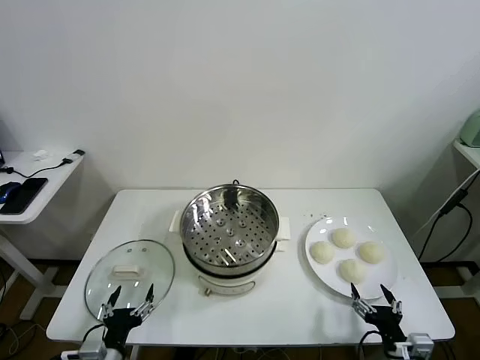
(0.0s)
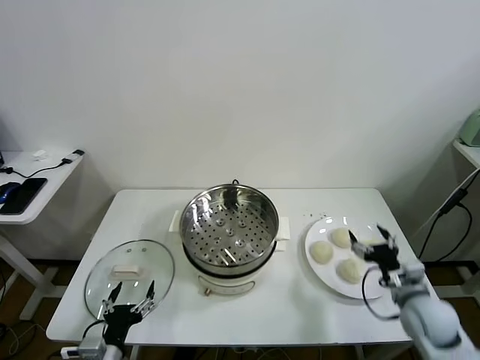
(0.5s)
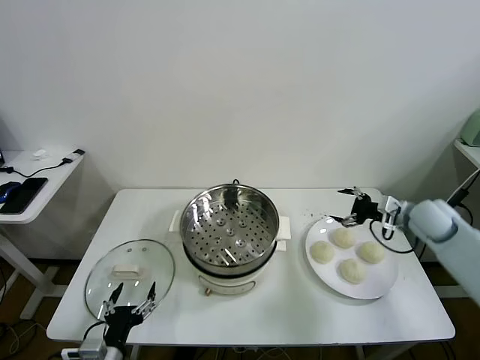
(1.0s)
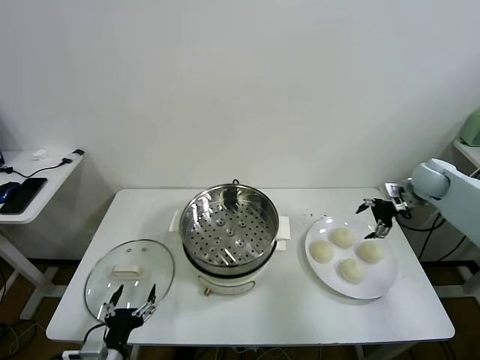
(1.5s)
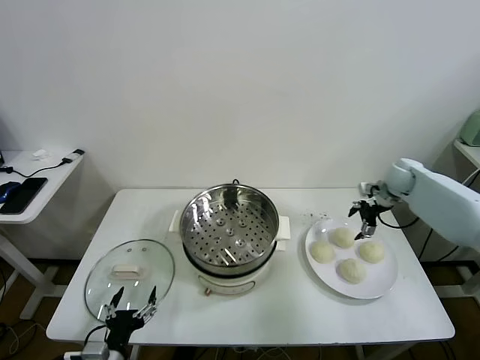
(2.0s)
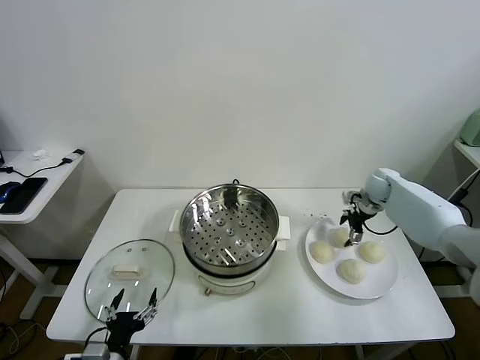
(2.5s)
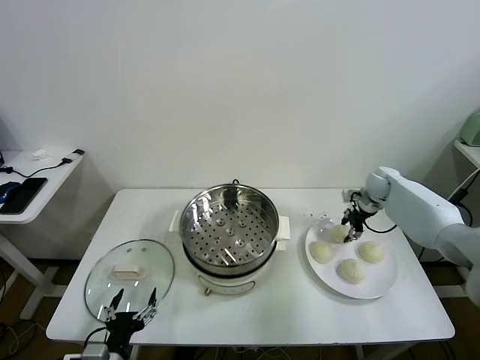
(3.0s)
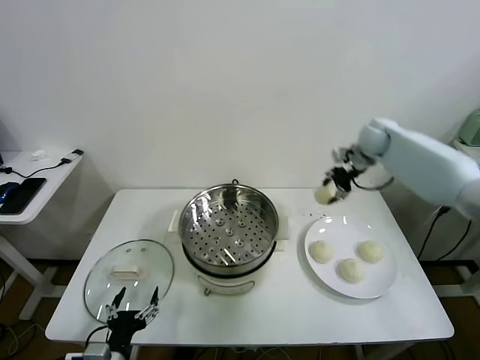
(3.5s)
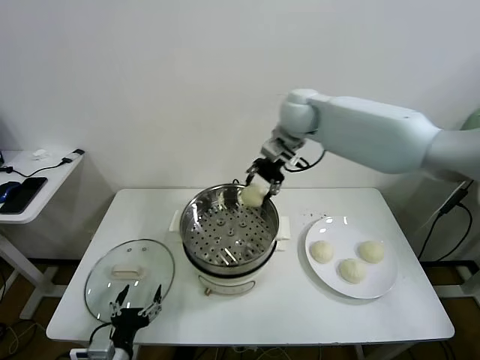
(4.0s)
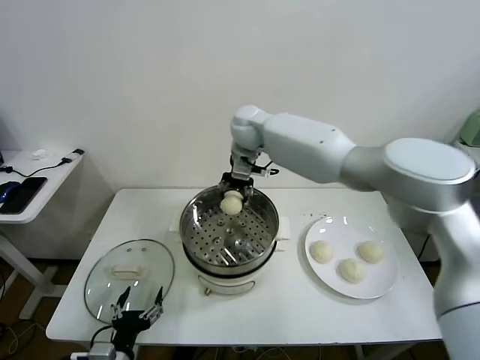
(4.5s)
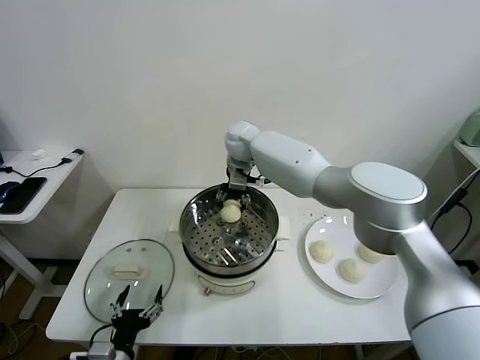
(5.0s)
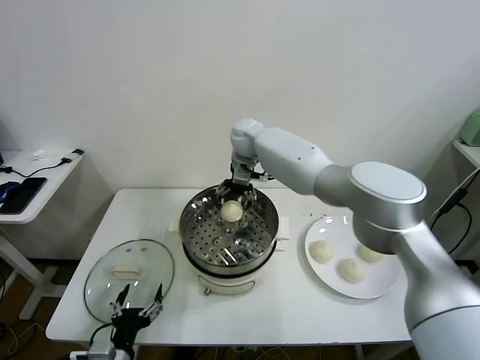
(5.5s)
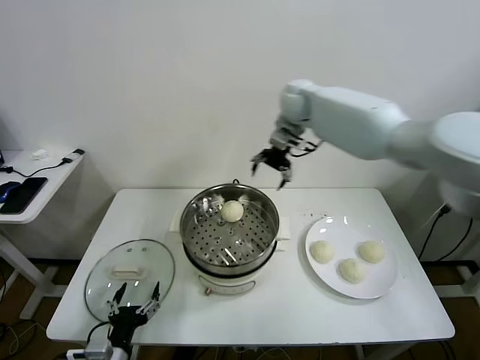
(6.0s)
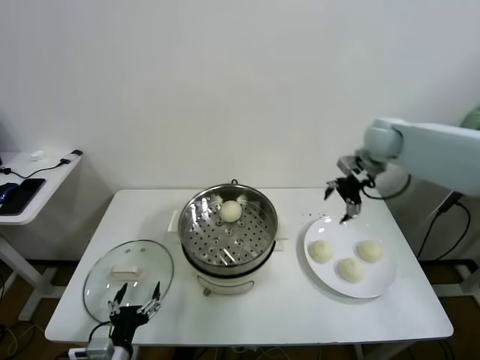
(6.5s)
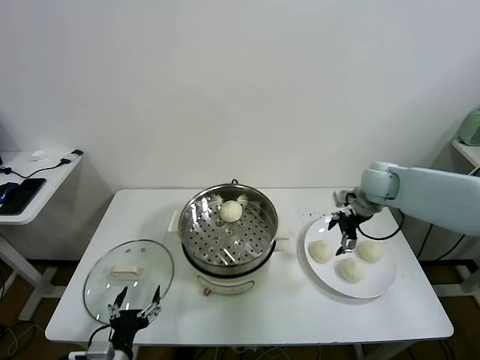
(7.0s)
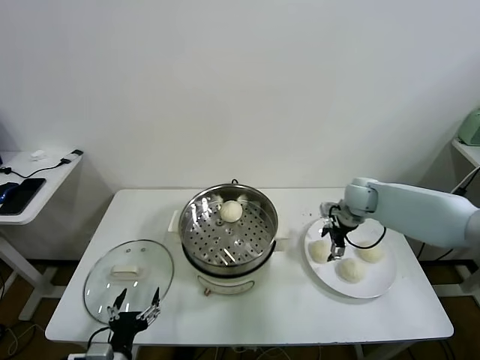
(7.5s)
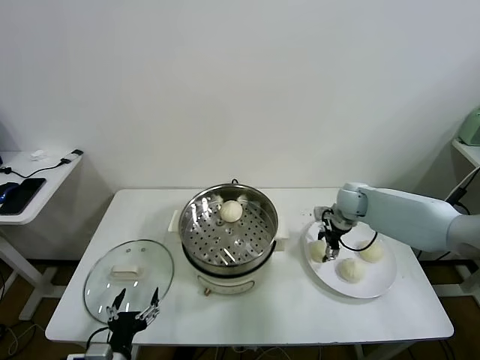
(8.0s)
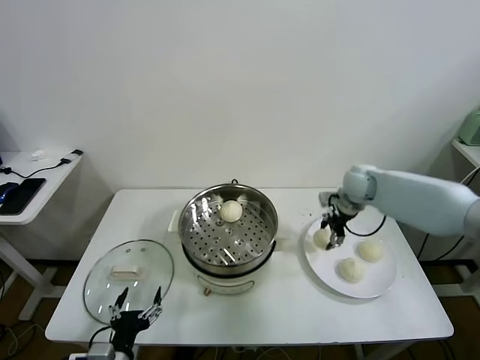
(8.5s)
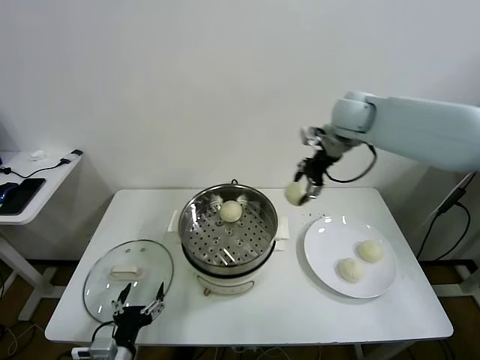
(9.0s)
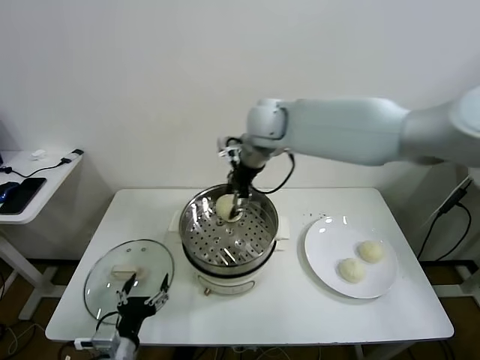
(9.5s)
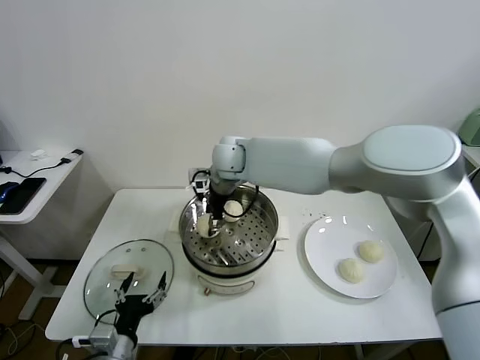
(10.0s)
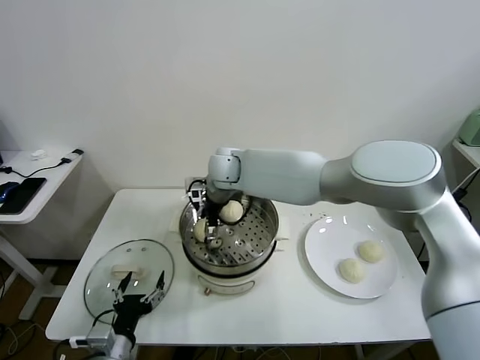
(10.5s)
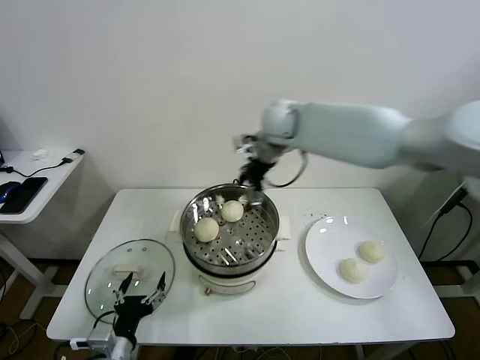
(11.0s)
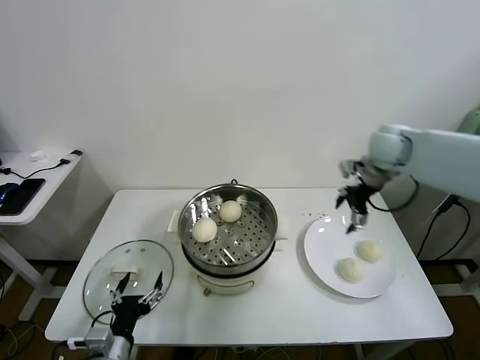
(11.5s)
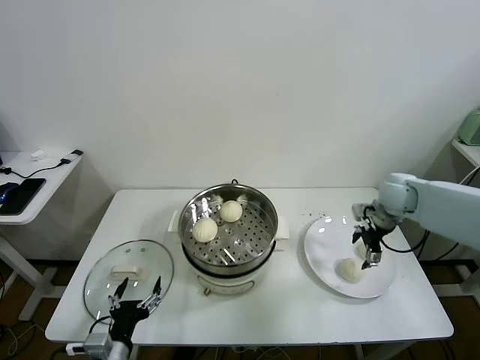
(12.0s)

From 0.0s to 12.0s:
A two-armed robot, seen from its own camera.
Task of the whole recording: take steamed baozi put them in steamer.
Step, from 0.0s to 2.5s: Grasp the baozi in the plate with right gripper.
Step, from 3.5s to 5.5s: Place the baozi on the steamer with right gripper.
Step, from 6.0s to 8.0s: Grasp the baozi in the plate with right gripper.
Step, from 8.5s to 10.0s: Place the baozi on the steamer with right gripper.
From 2.0s to 4.0s: The right gripper moves to the left and upward, approximately 40 cm, and closes.
From 4.0s to 6.0s: The right gripper moves to the right and forward, roughly 10 cm, and opens.
From 6.0s to 8.0s: The right gripper travels downward and to the right by approximately 25 cm, and closes its fingers.
From 8.0s to 10.0s: The right gripper is displaced to the left and upward by some 35 cm.
From 10.0s to 12.0s: The right gripper is displaced to the right by about 40 cm, and opens.

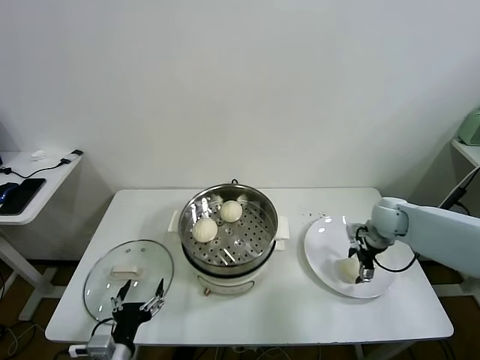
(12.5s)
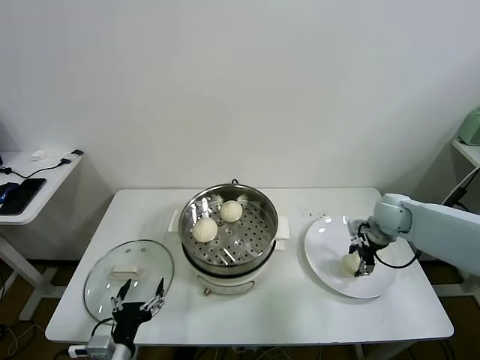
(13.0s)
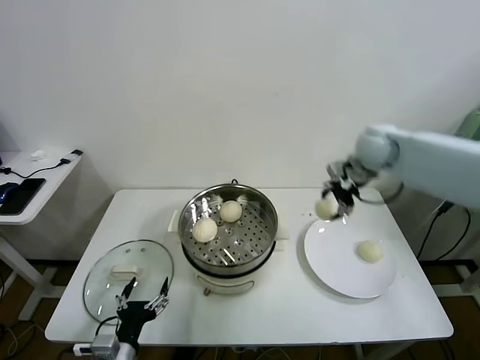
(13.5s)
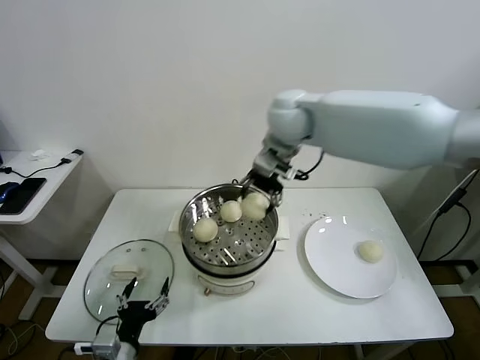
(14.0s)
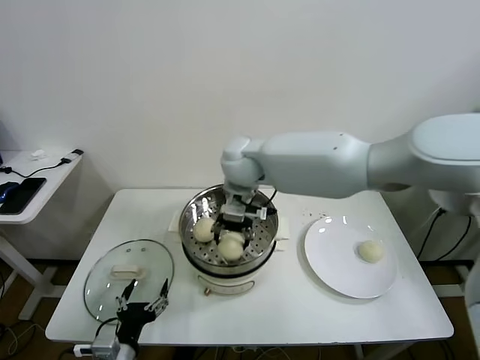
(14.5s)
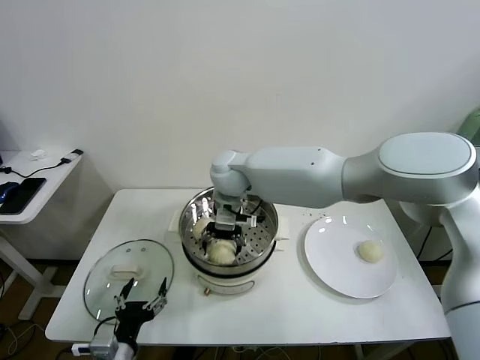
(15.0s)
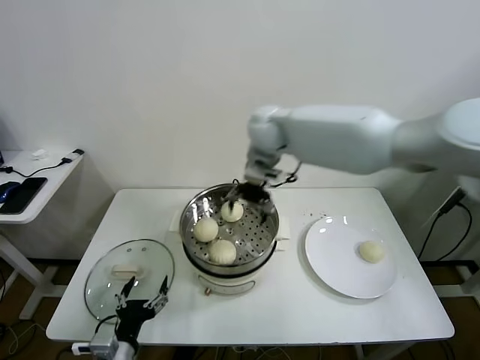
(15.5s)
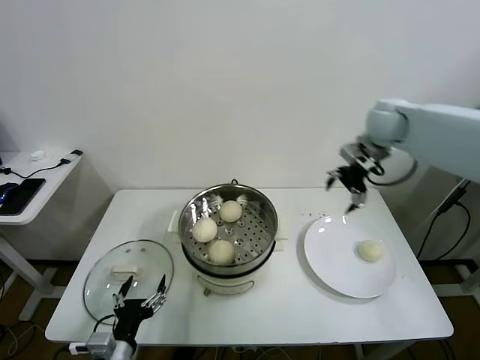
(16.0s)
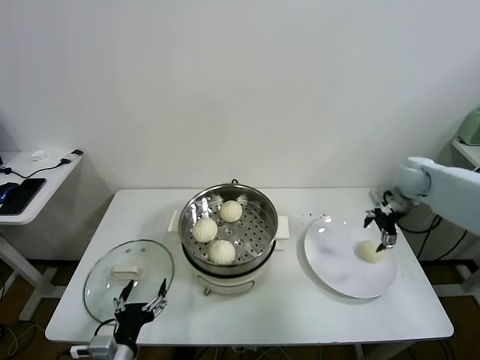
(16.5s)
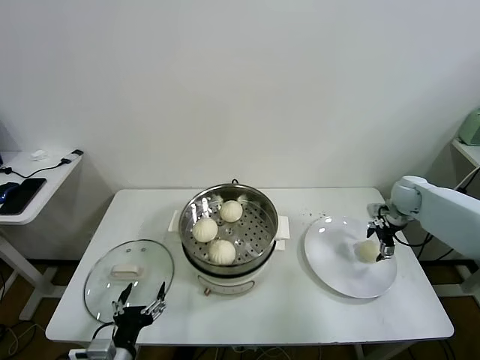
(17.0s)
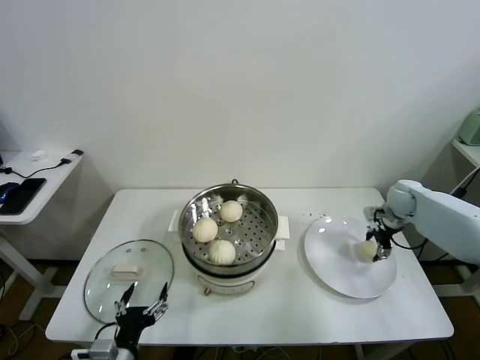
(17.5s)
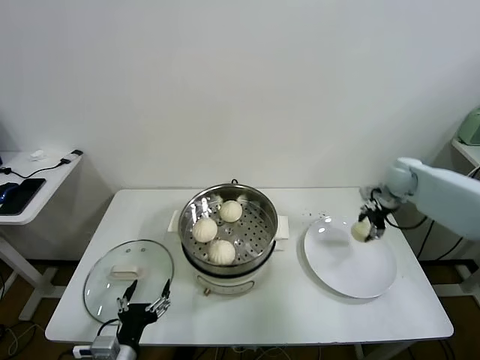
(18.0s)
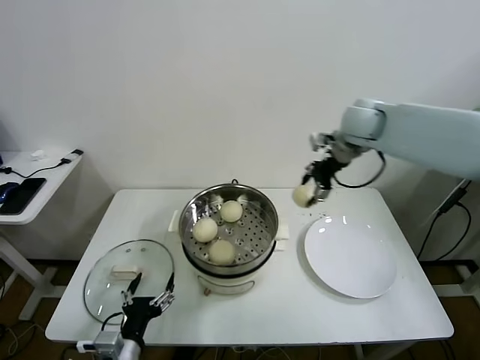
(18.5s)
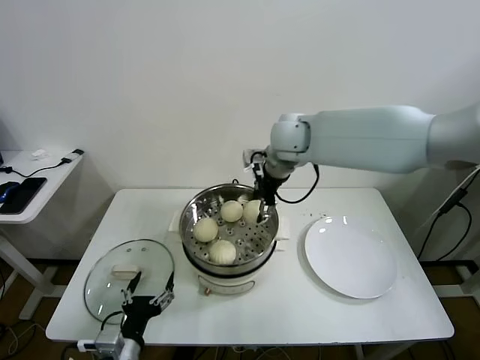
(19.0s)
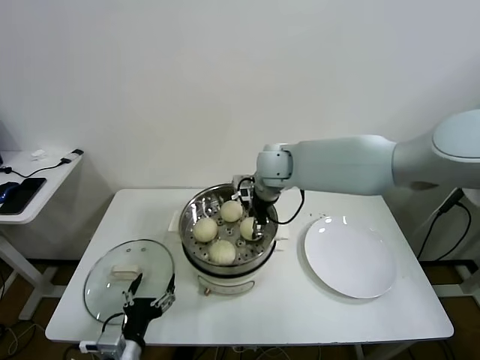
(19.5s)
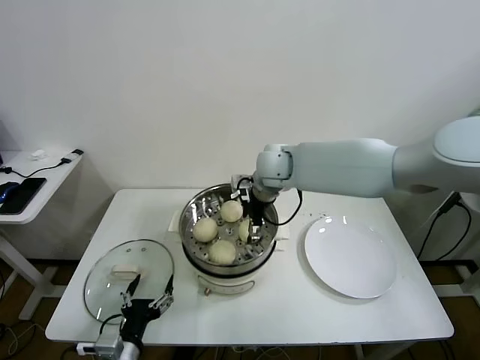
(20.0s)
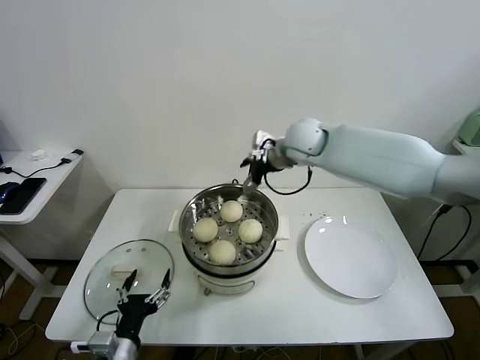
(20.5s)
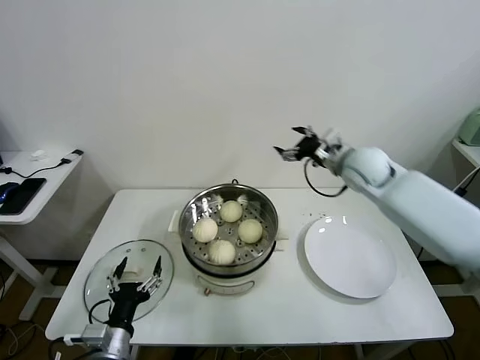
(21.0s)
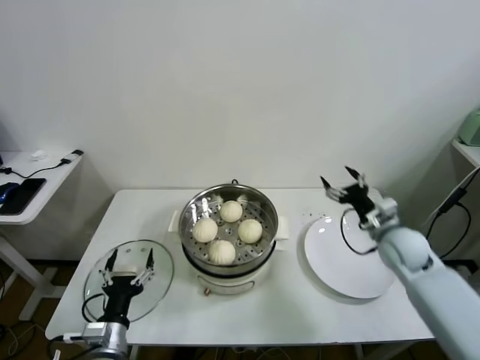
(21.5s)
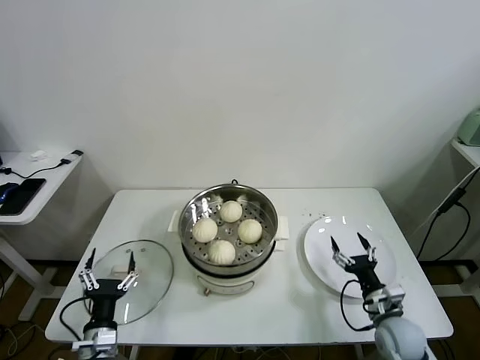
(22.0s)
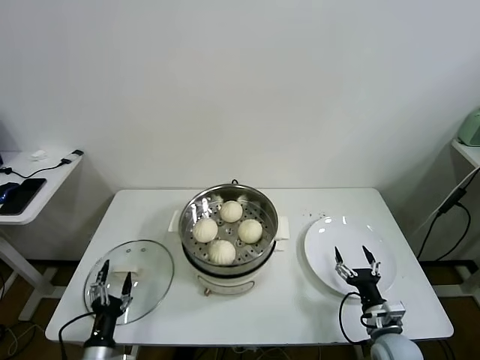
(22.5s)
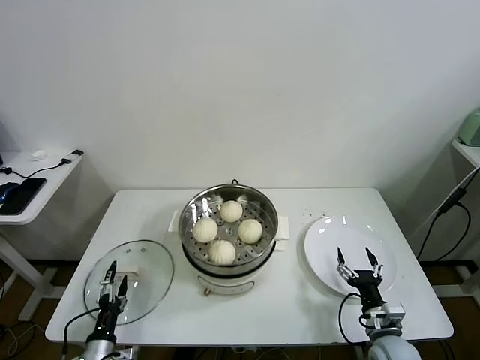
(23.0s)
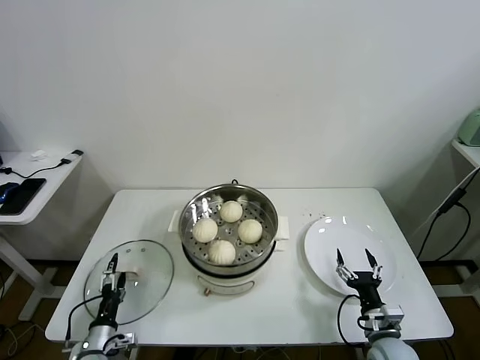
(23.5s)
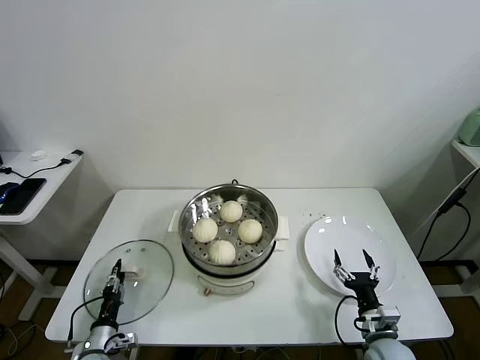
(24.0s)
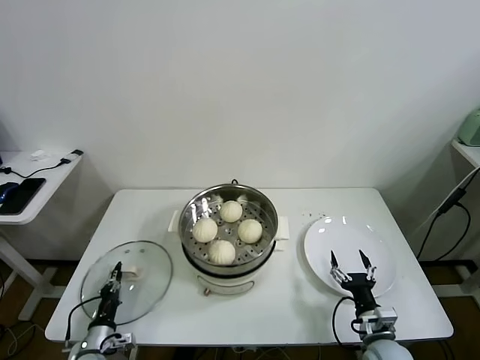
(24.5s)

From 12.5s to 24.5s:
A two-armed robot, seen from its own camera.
Task of the whole recording: take steamed baozi put them in steamer.
Step, from 13.0s to 14.5s: Place the baozi on the steamer with right gripper.
Step, from 15.0s to 17.0s: Grasp the baozi in the plate with right gripper.
Step, from 17.5s to 20.0s: Place the baozi on the steamer with right gripper.
Step, from 20.5s to 24.5s: Grasp the pot lid with left gripper.
From 12.5s to 14.5s: The right gripper moves to the left and upward, approximately 40 cm, and closes up.
From 14.5s to 16.5s: The right gripper is displaced to the right by some 40 cm, and opens up.
From 16.5s to 18.5s: The right gripper is displaced to the left and upward by some 25 cm, and closes up.
From 18.5s to 20.5s: The right gripper moves to the left, roughly 10 cm, and opens.
From 20.5s to 22.5s: The left gripper is displaced downward and to the left by about 10 cm. The right gripper goes some 50 cm downward, backward and to the right.
From 22.5s to 24.5s: The left gripper is displaced downward and forward by roughly 10 cm, and closes.

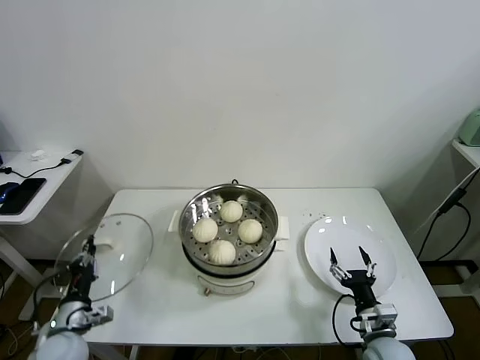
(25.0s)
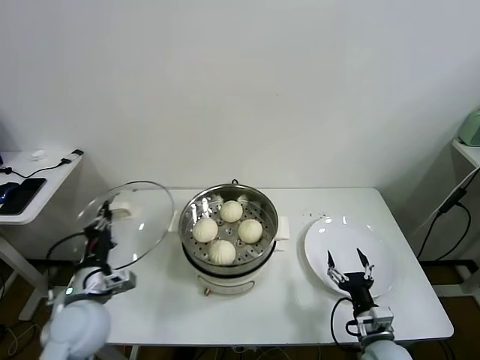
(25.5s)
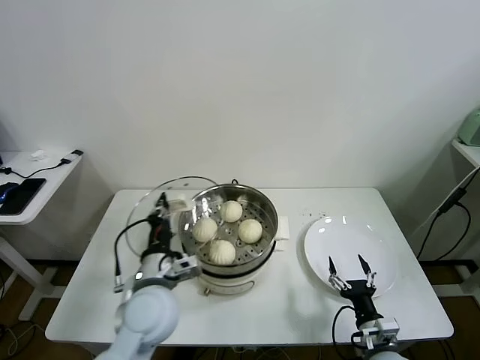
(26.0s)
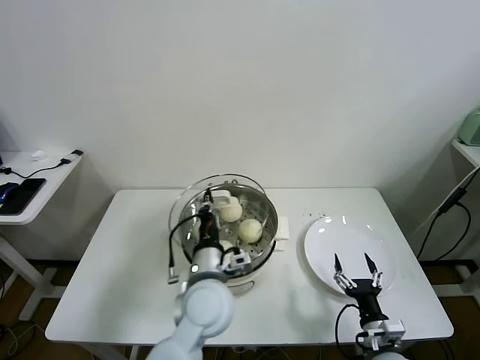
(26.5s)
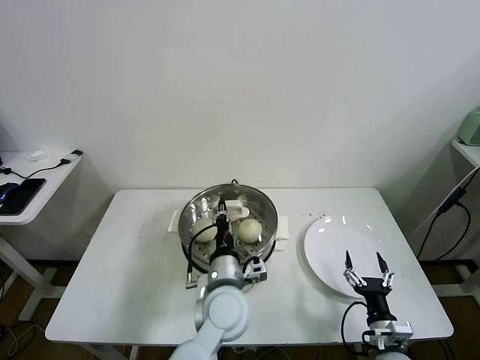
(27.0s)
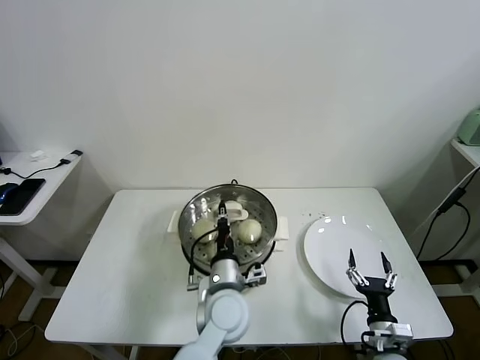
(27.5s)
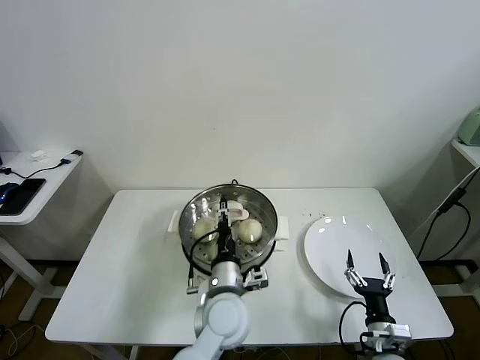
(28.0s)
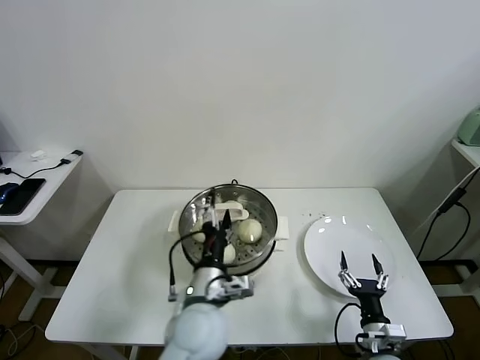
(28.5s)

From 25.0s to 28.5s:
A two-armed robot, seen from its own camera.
Task of the whole recording: take steamed baozi put them in steamer.
Step, from 25.0s to 27.5s: Place the pot lid on the steamer with left gripper.
From 25.0s to 27.0s: The left gripper travels to the right by roughly 35 cm.
From 27.0s to 28.5s: The left gripper changes place by approximately 5 cm, and opens its fingers.
